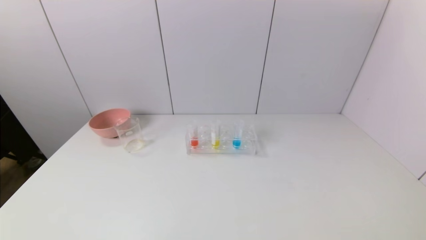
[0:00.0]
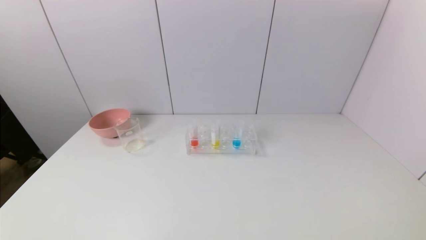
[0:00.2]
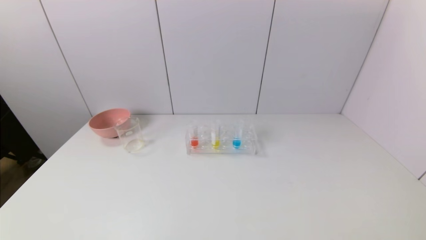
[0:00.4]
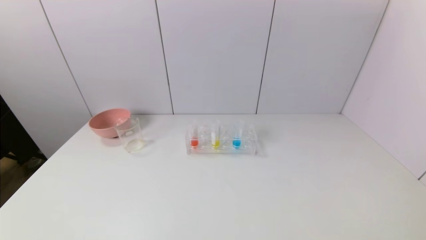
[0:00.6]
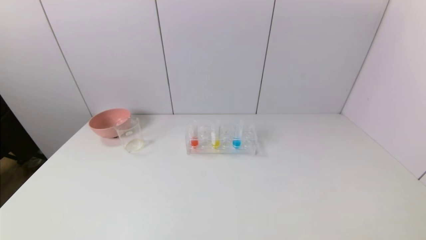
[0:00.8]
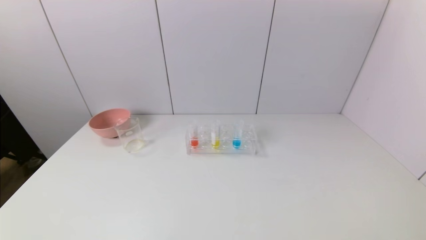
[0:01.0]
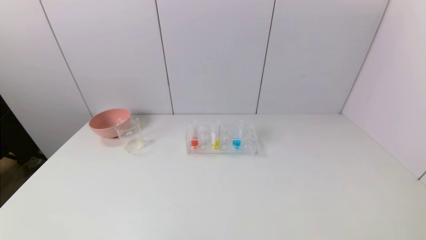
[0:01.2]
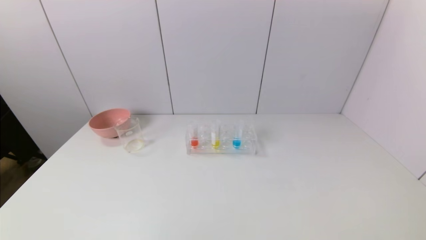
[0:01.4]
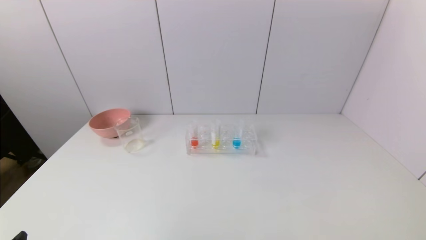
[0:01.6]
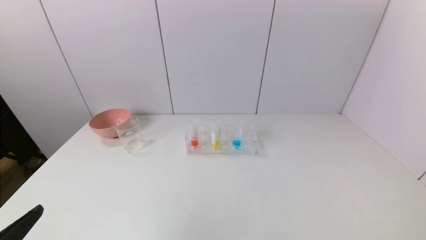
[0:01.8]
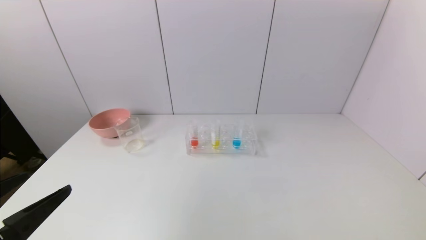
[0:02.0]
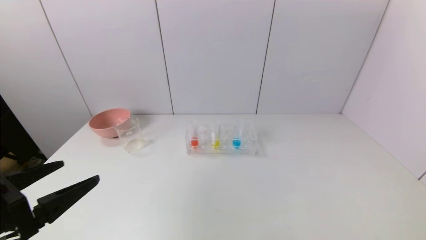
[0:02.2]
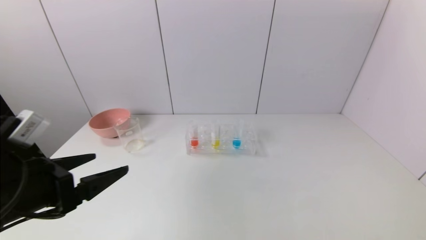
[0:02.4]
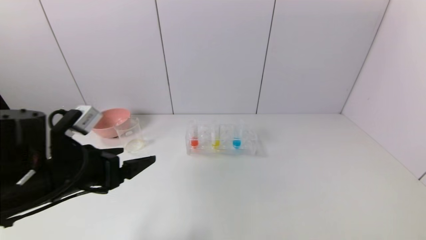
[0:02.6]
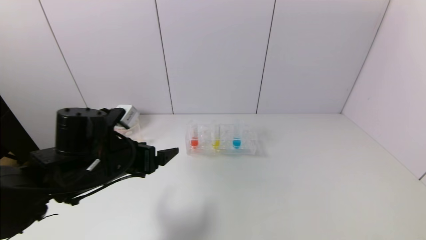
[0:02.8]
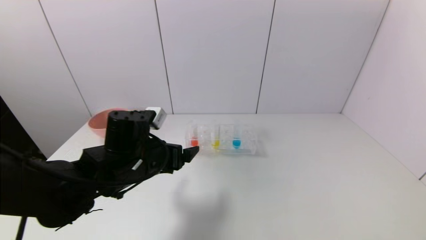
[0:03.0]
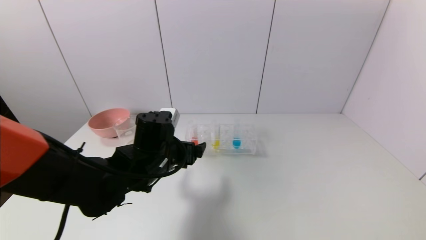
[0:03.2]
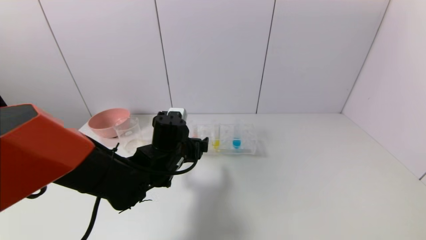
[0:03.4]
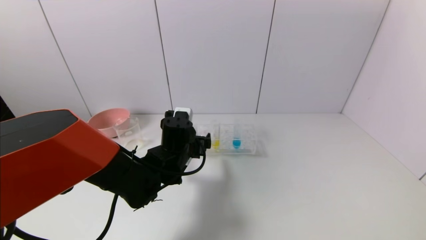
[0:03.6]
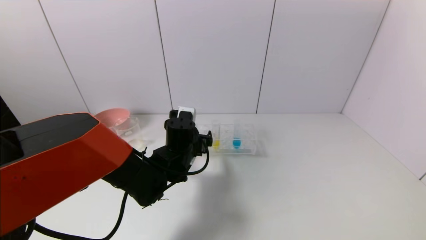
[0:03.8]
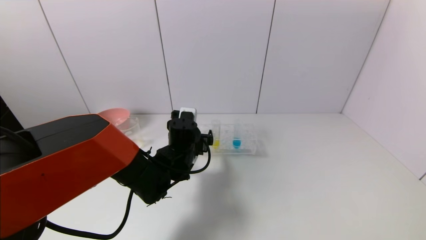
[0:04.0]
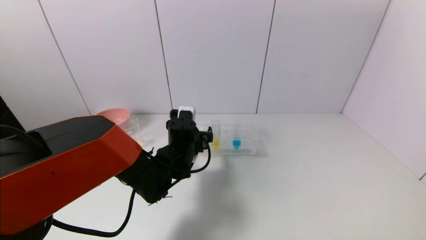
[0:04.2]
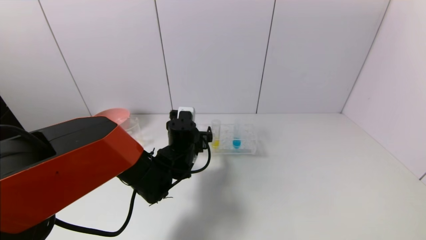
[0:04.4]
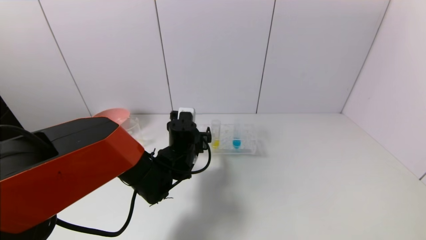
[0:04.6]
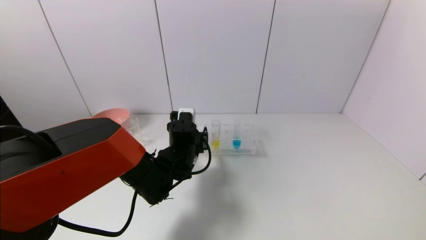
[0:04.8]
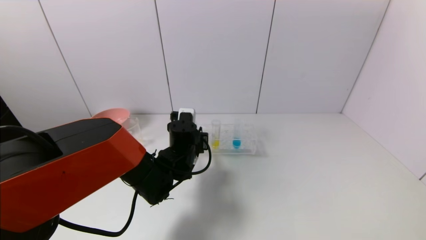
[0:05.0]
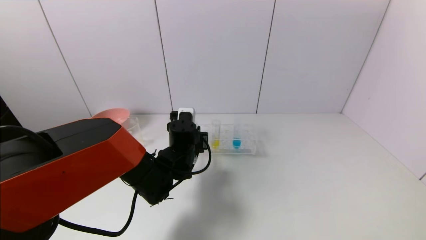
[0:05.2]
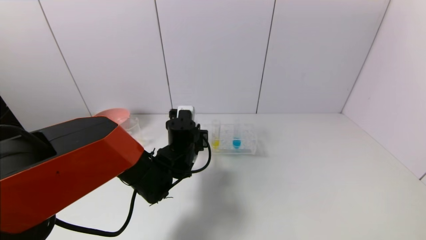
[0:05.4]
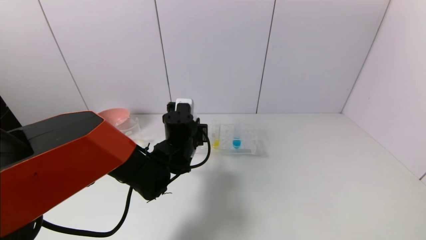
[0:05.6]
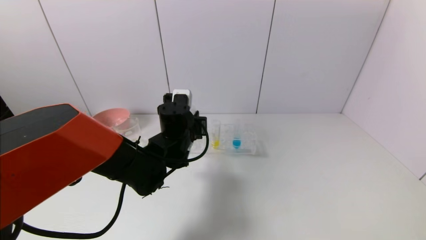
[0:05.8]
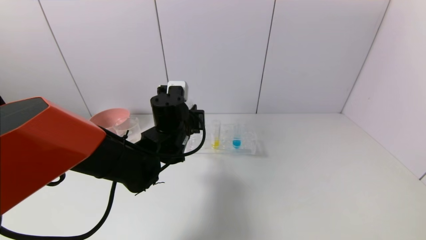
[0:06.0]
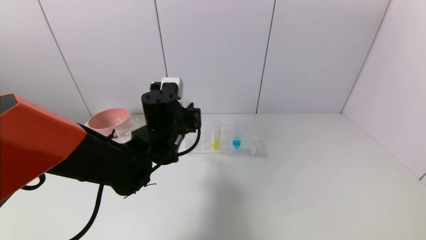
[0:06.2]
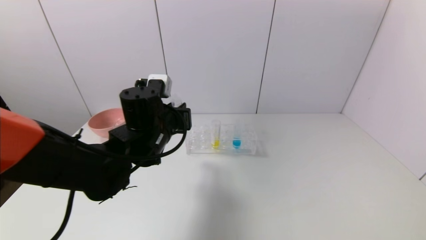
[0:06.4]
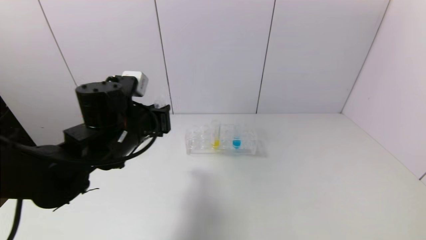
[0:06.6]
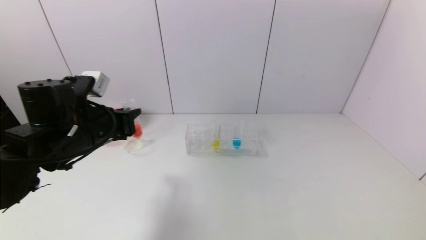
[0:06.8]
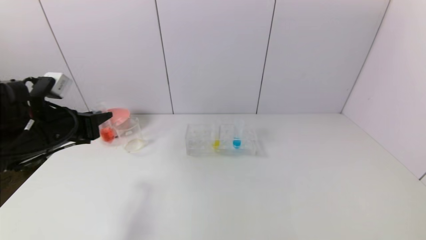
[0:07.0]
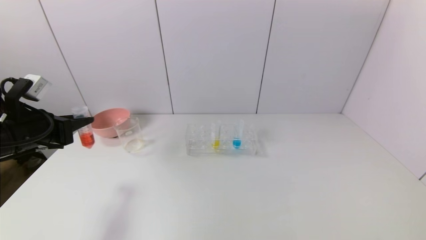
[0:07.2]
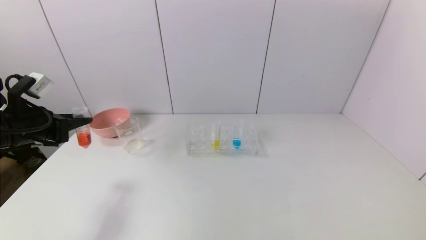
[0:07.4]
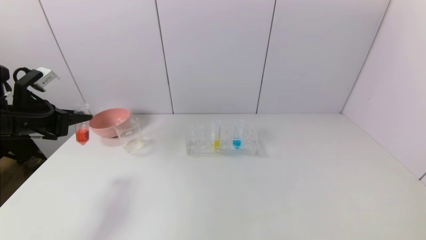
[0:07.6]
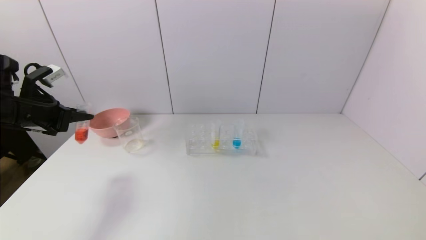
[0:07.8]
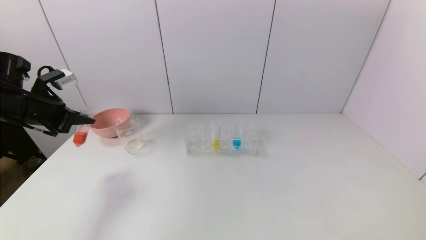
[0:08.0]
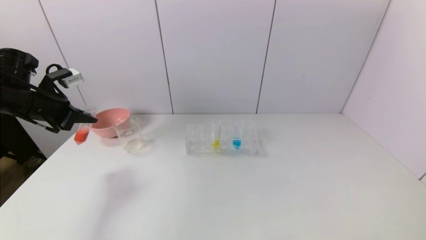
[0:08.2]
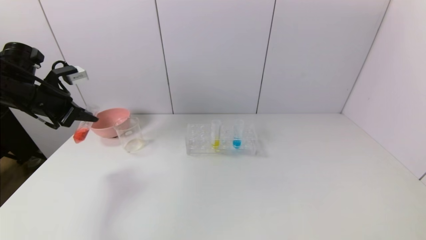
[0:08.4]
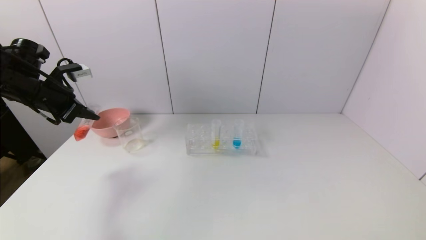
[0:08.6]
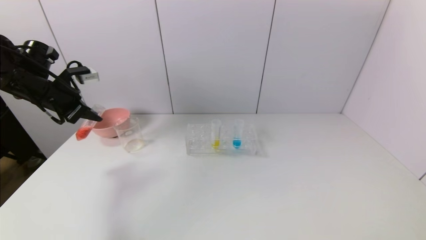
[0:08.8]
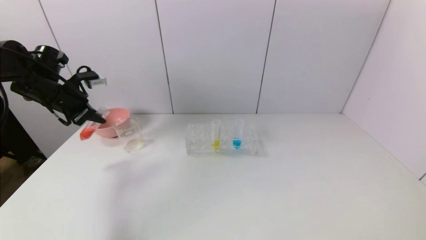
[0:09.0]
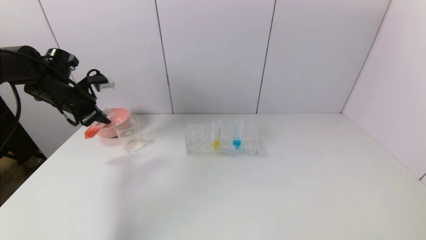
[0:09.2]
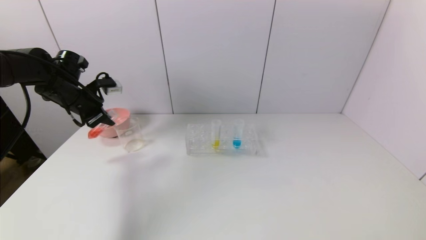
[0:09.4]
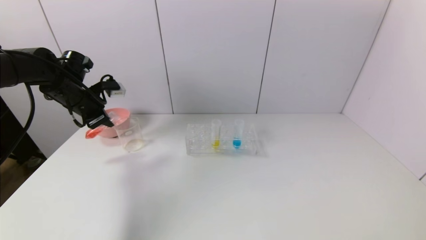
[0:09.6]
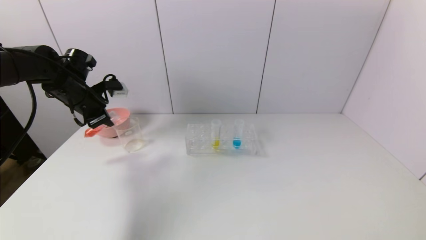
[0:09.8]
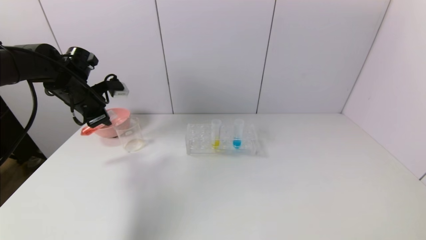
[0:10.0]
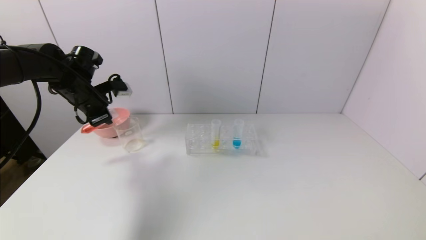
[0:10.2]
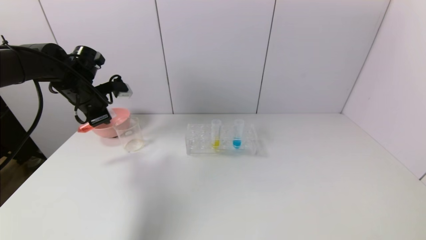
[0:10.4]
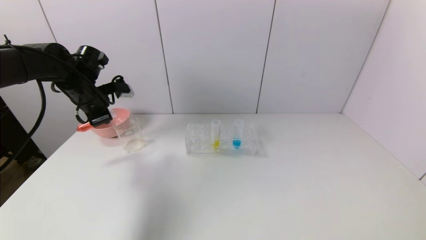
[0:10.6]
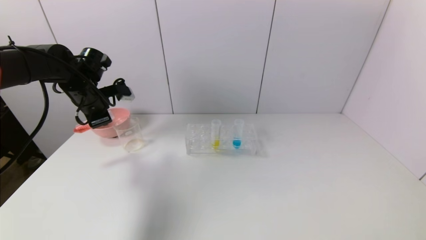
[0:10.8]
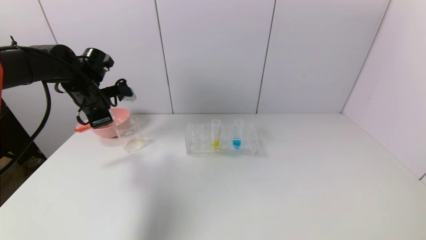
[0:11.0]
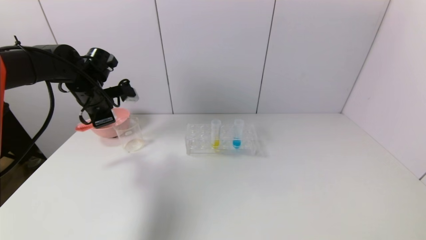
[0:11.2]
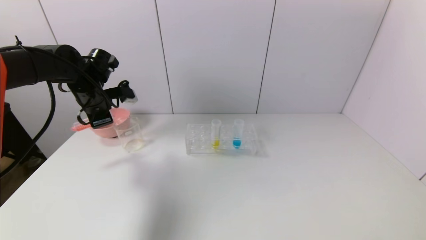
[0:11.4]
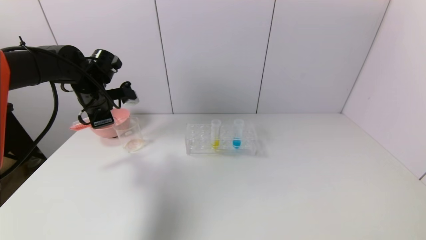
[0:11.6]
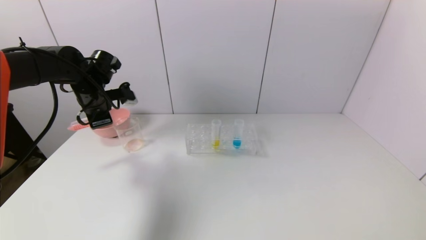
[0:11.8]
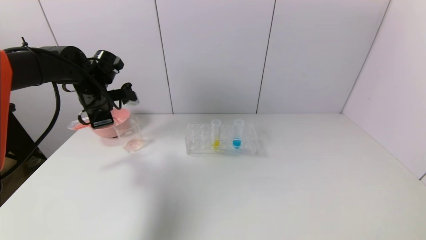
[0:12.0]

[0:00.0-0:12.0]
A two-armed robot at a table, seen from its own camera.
Task of the whole recording: pick up the test tube with yellow pigment and the test tube with red pigment by grippers and pour them into the beaker.
Step, 0:00.0 to 0:05.2: Grasp the red reagent with the left gripper.
0:01.6 to 0:03.0: The left gripper moves forward and to the right, about 30 cm.
0:03.0 to 0:04.4: The left gripper goes roughly 15 cm forward, to the right and downward.
0:04.4 to 0:06.0: The left gripper travels upward by some 5 cm, and closes.
0:06.0 to 0:07.6: The left gripper shifts approximately 30 cm to the left.
0:07.6 to 0:09.0: The left gripper goes some 10 cm forward.
0:09.0 to 0:10.4: The left gripper moves to the right, some 5 cm.
0:10.4 to 0:12.0: The grippers move only a little.

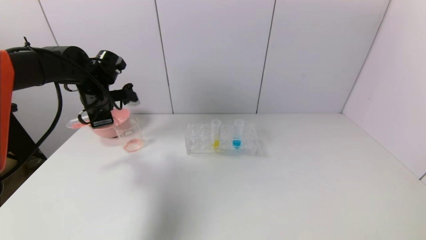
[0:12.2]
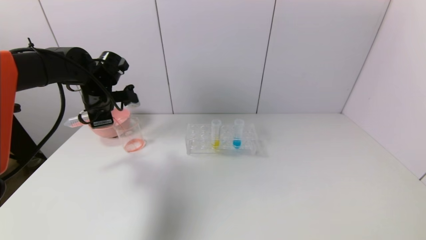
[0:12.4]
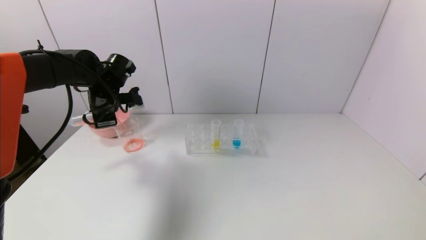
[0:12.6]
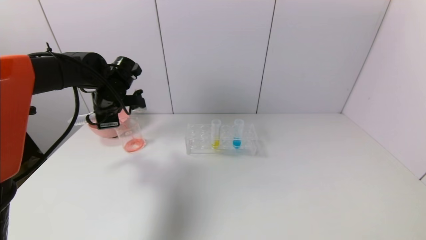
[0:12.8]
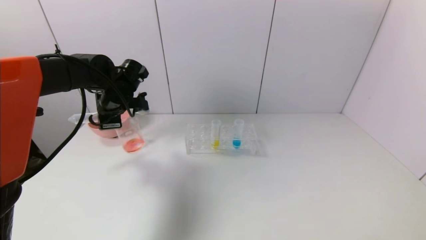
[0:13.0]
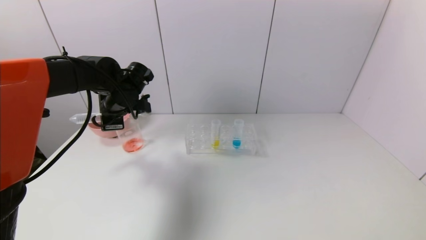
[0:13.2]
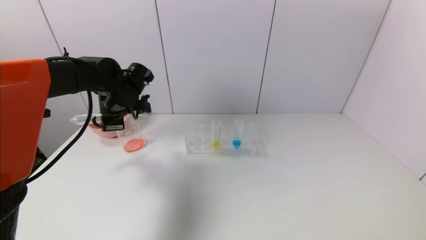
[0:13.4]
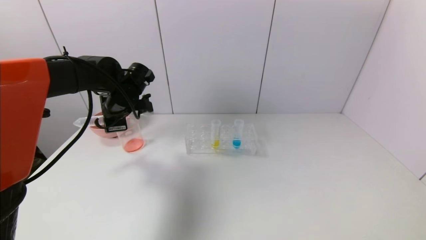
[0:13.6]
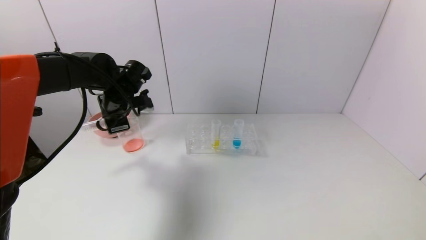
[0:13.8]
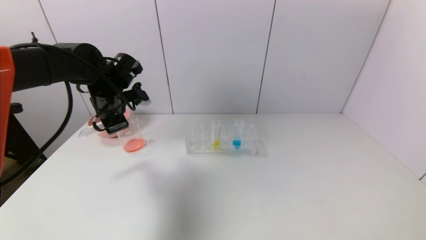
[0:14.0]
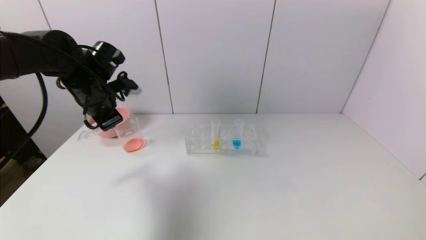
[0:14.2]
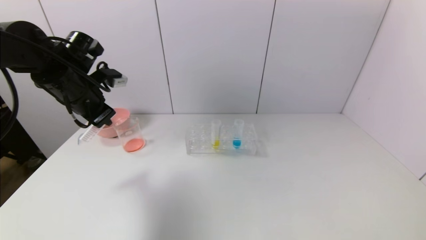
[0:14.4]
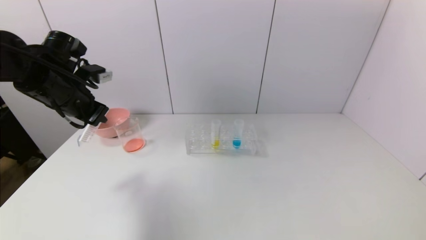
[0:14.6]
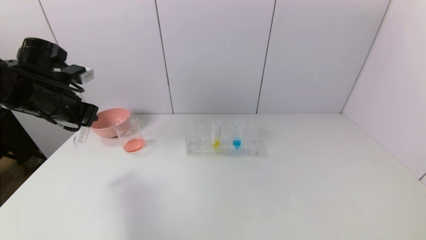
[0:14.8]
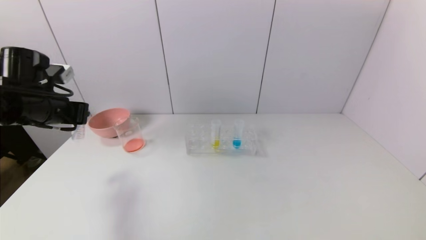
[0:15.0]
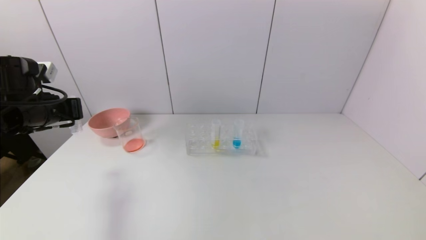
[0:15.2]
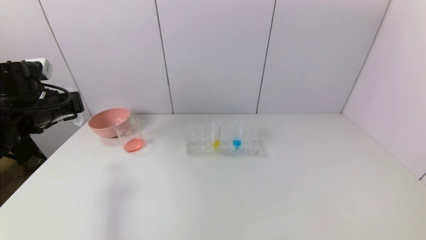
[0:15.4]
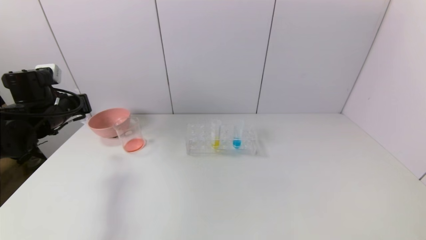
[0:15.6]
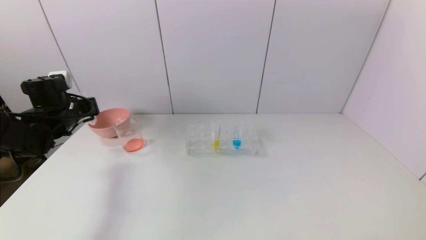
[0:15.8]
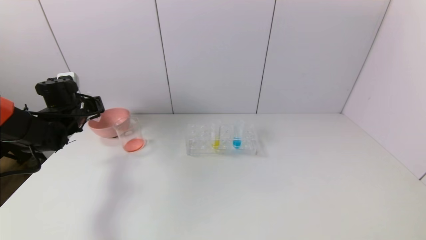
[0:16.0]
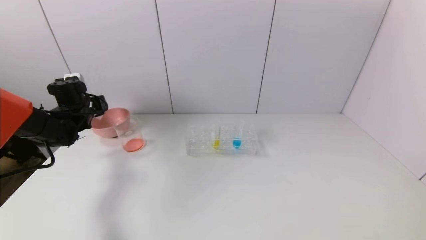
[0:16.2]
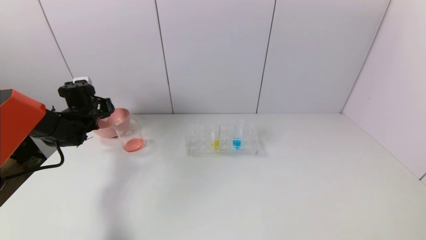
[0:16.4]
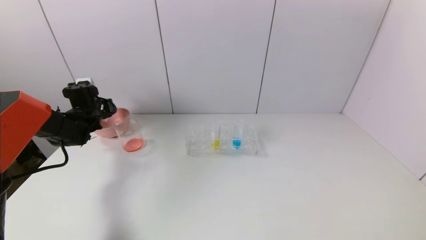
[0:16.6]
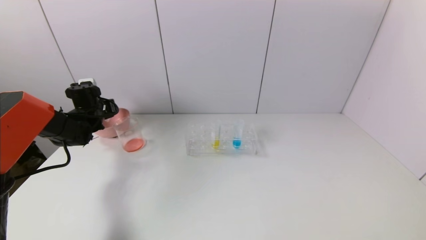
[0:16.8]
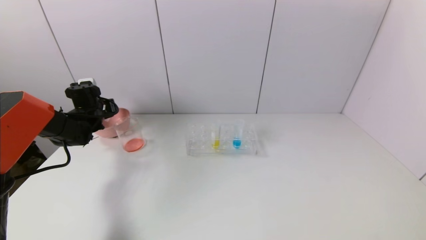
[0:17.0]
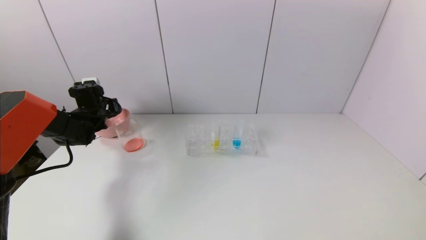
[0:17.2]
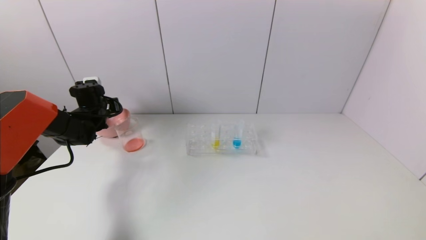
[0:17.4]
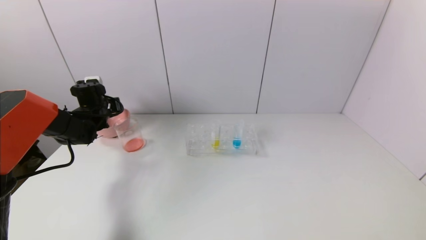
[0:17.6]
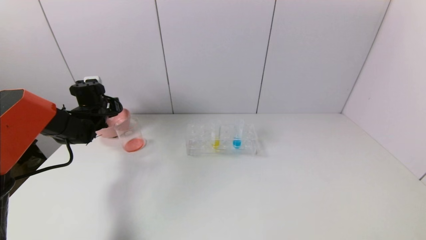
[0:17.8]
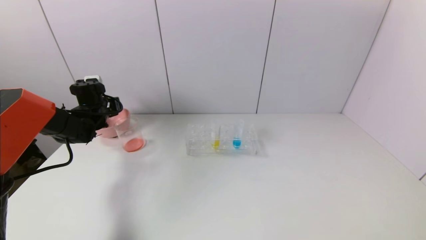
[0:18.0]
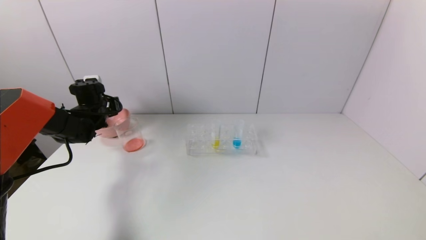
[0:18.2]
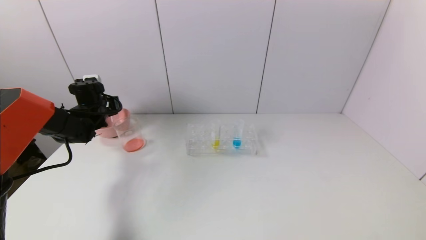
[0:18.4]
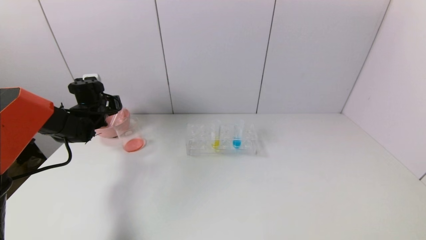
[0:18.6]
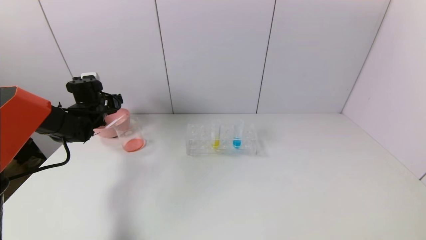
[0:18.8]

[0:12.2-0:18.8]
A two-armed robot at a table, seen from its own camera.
Task of the whole recording: pick up the test tube with yellow pigment and the test tube with red pigment by grippers and pour them into the beaker.
Step, 0:13.6 to 0:18.4: Place the test tube into the pink bowl with the left gripper.
0:12.2 to 0:13.8: The left gripper travels to the right by some 5 cm.
0:13.8 to 0:15.4: The left gripper travels to the left and backward by about 15 cm.
0:15.4 to 0:17.2: The left gripper shifts approximately 15 cm forward and downward.
0:17.2 to 0:18.8: The left gripper opens up.
